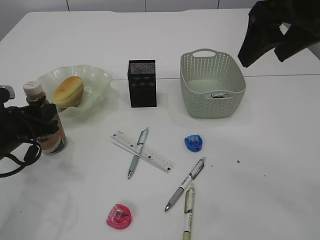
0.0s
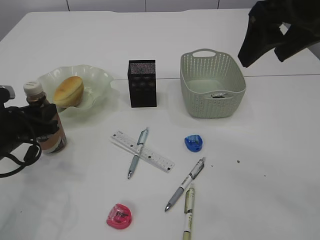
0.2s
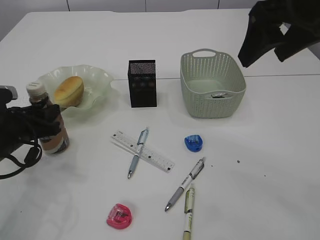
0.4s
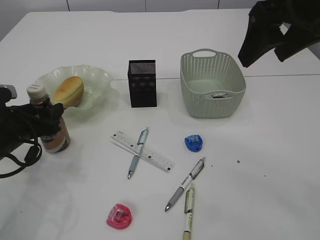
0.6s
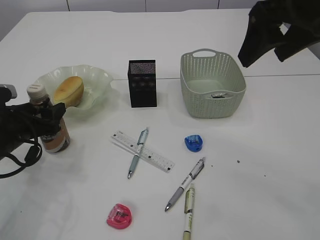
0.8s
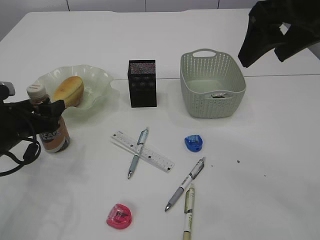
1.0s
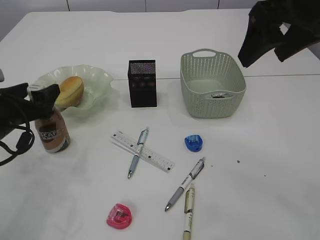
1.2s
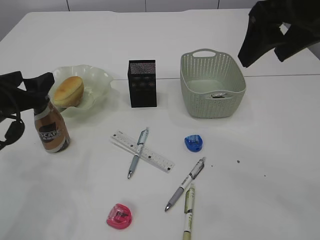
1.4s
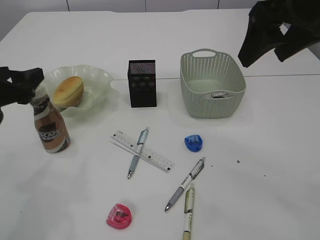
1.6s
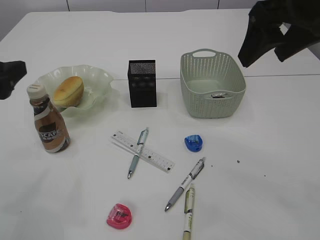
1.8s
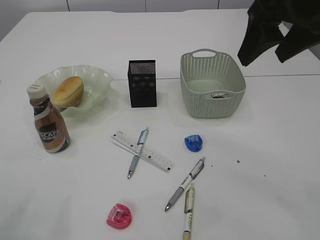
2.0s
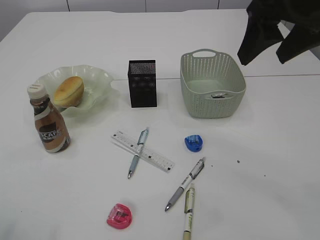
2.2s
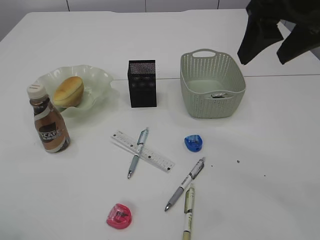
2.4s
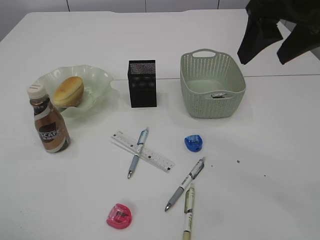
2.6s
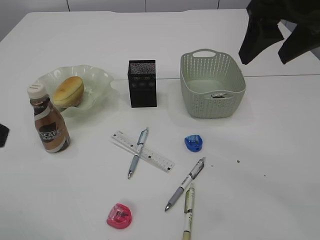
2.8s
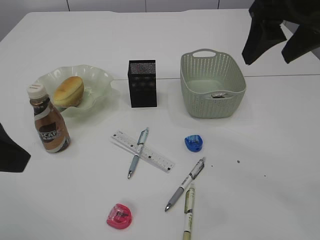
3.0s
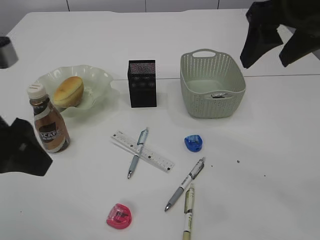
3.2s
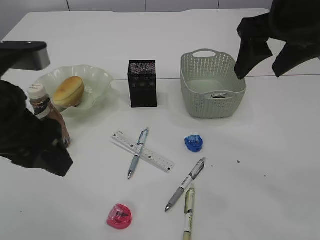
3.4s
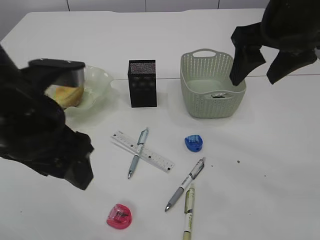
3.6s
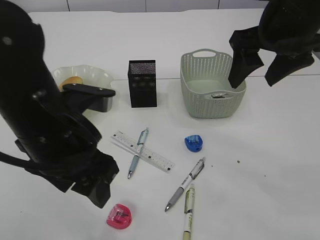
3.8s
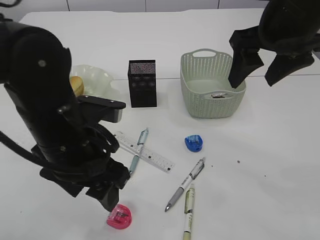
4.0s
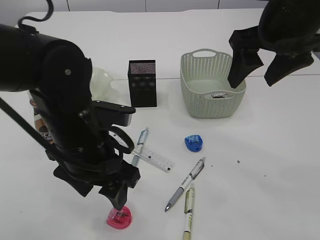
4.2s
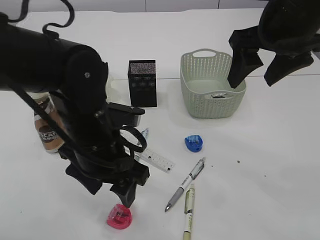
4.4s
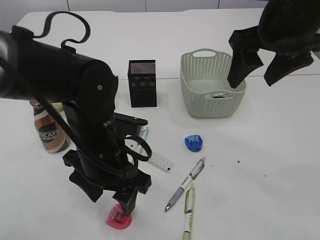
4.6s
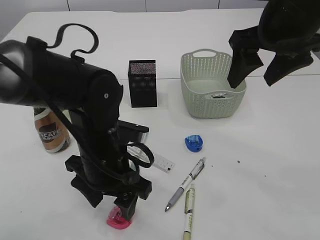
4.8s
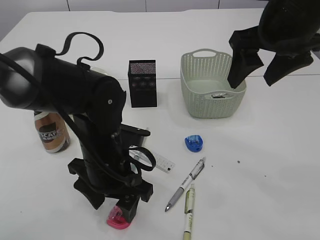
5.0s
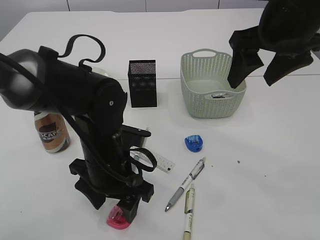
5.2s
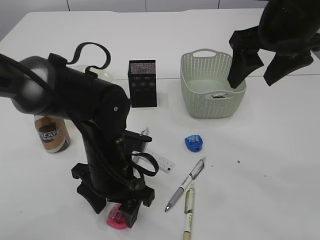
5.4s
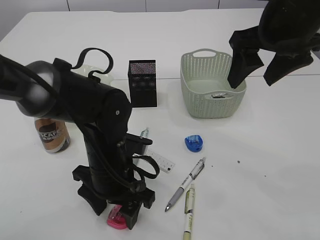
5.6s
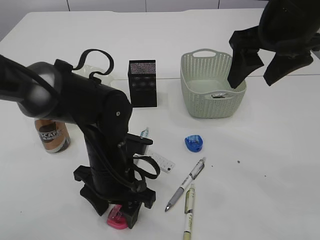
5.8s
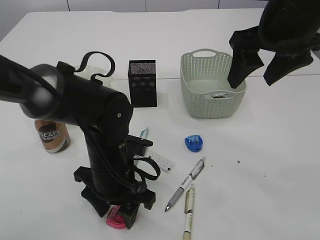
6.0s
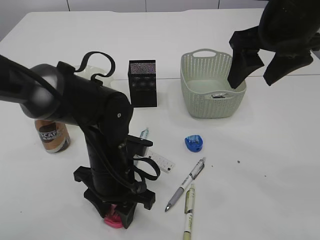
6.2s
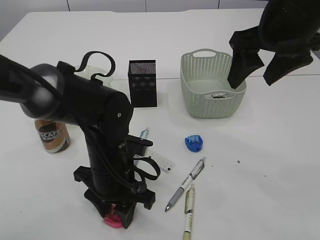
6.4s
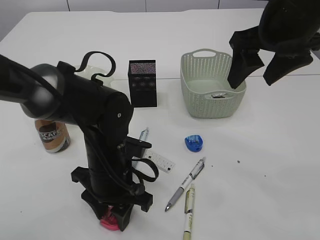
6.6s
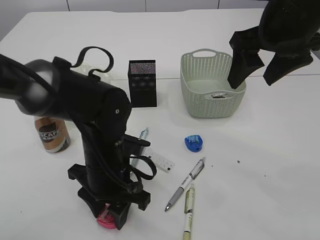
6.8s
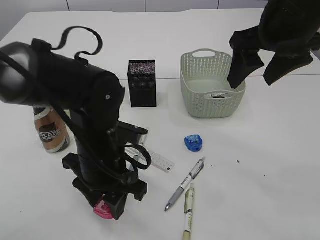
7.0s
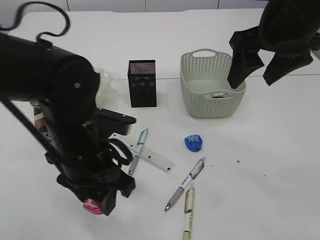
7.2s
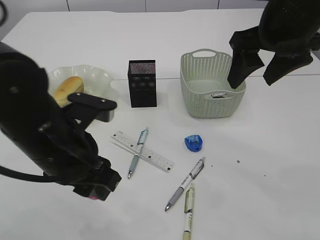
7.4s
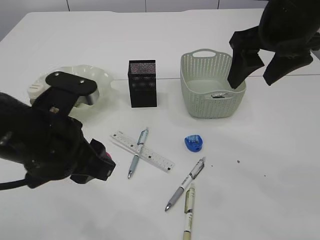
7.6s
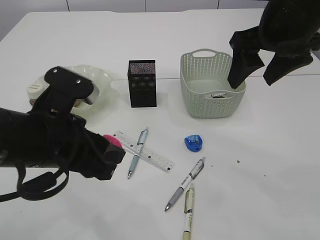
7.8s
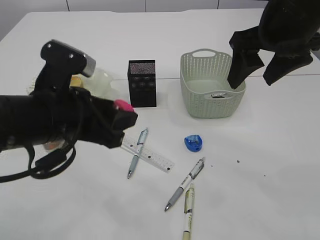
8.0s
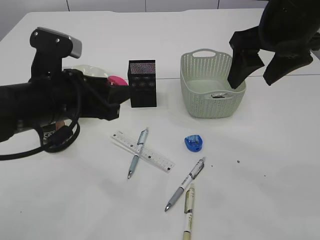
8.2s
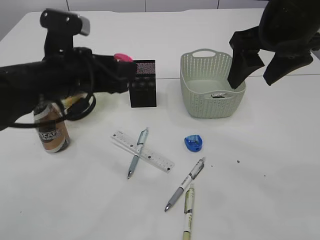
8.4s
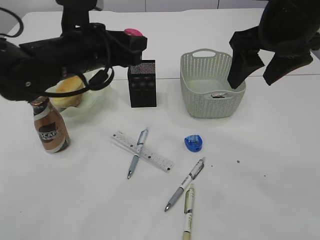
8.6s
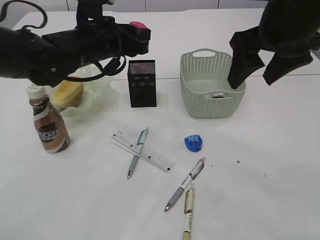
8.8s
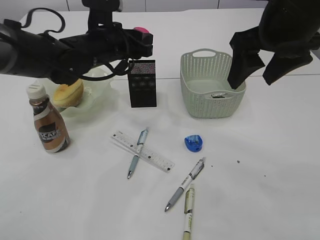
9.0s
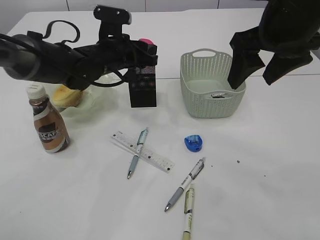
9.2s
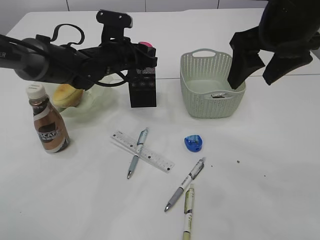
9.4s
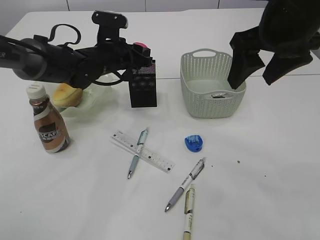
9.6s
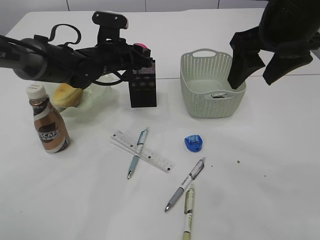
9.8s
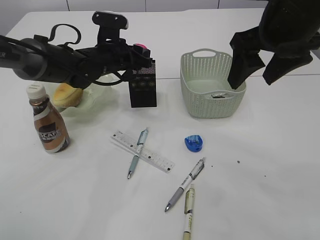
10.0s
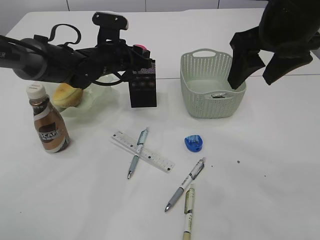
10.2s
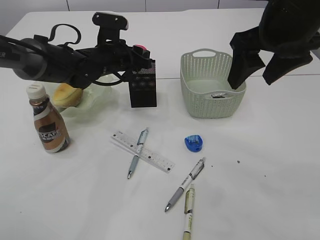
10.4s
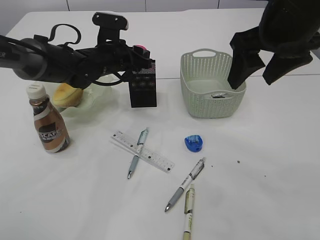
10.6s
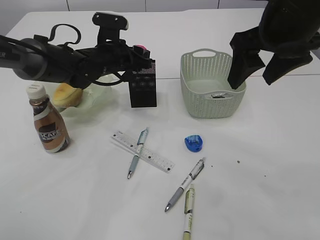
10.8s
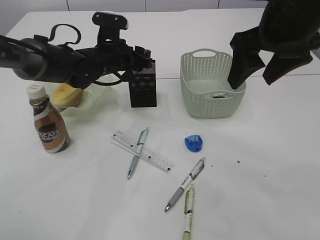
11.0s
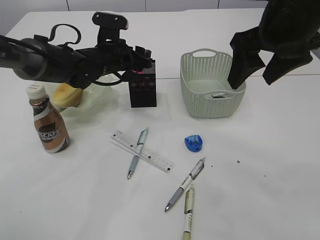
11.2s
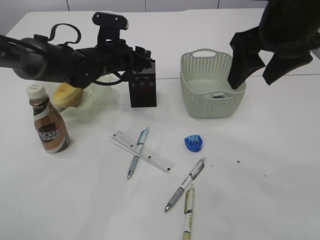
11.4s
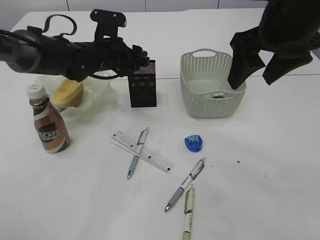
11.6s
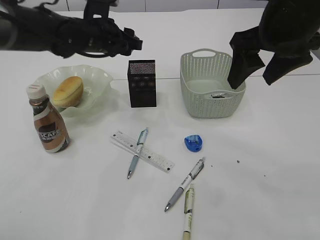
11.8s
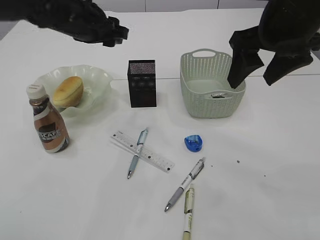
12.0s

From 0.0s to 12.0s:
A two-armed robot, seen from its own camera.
Step, from 1.6s to 7.0s: Pick up the red pencil sharpener.
Step, from 7.2s to 11.8s: Place the red pencil sharpener into the pen holder.
From 0.0s to 1.6s: The left gripper travels upward by approximately 10 cm, and opens its fingers.
From 1.6s to 3.0s: The left gripper heads backward, upward and to the right, covering about 15 cm.
From 3.0s to 4.4s: The left gripper is displaced to the right, downward and forward by about 20 cm. Meanwhile the right gripper changes place by approximately 5 cm.
From 4.4s to 6.0s: The left gripper travels downward by some 5 cm.
From 6.0s to 7.6s: The left gripper goes approximately 15 cm upward, to the left and backward.
From 7.6s to 9.0s: The left gripper shifts some 20 cm forward.
From 9.0s to 10.4s: The left gripper travels downward by about 5 cm.
From 10.4s to 12.0s: The left gripper travels upward by some 10 cm.

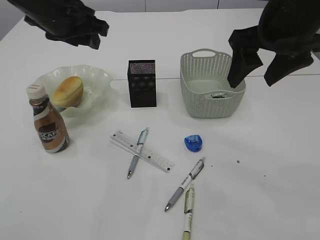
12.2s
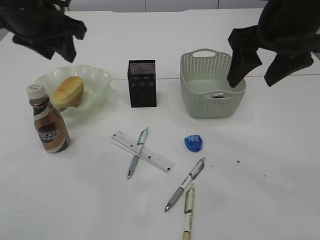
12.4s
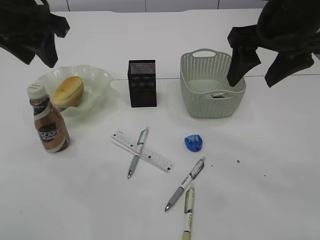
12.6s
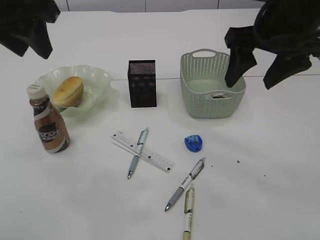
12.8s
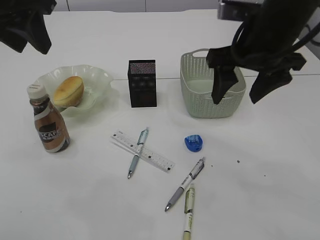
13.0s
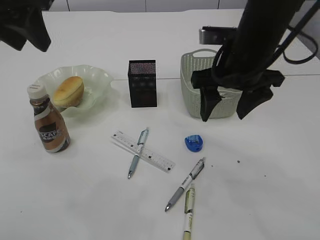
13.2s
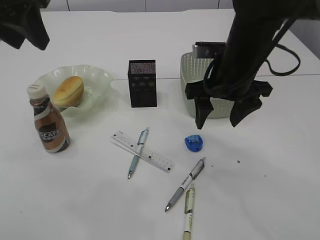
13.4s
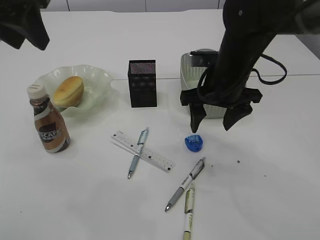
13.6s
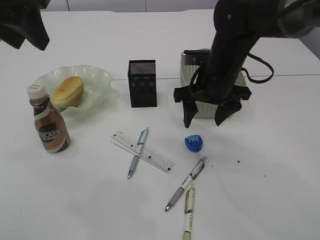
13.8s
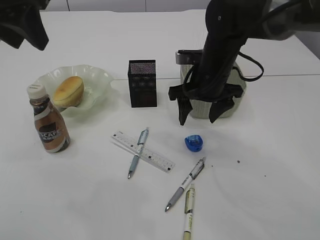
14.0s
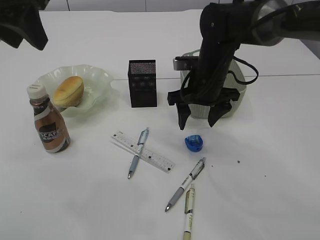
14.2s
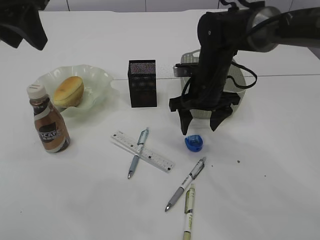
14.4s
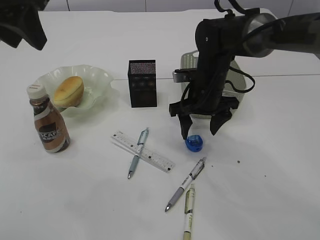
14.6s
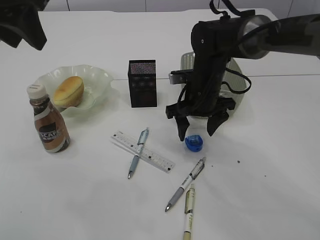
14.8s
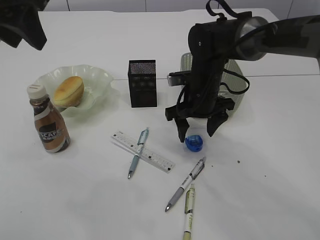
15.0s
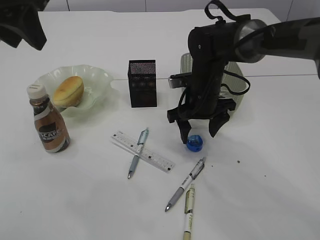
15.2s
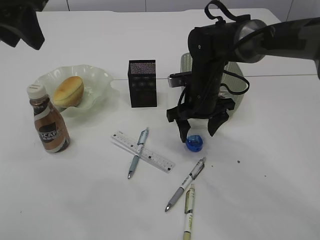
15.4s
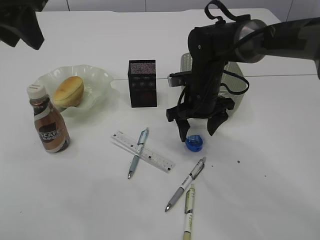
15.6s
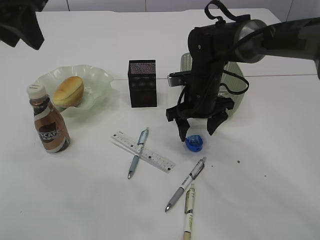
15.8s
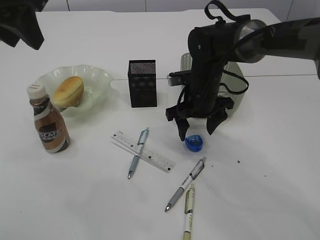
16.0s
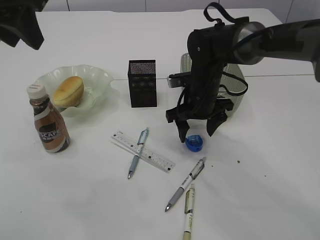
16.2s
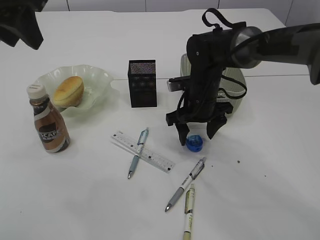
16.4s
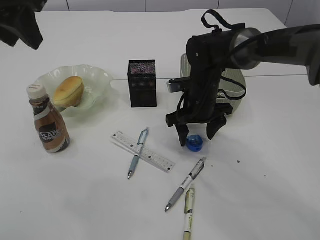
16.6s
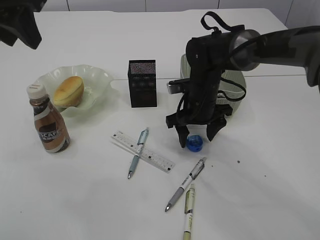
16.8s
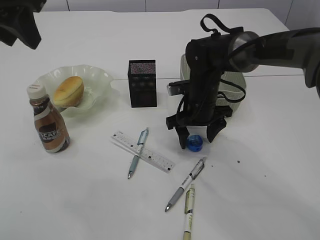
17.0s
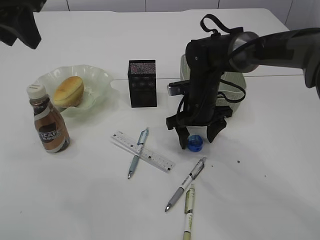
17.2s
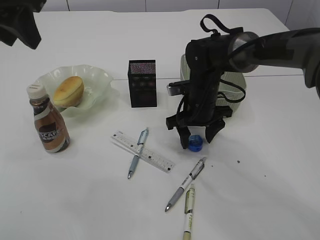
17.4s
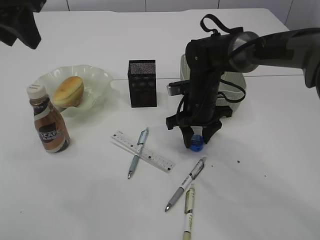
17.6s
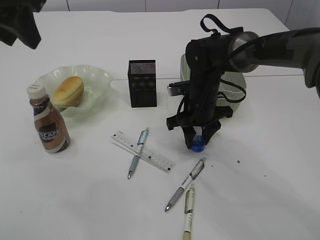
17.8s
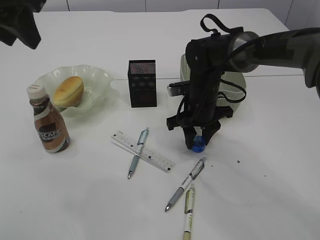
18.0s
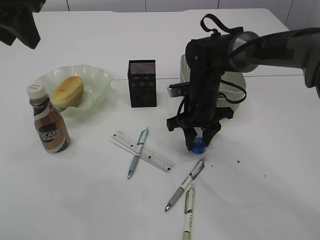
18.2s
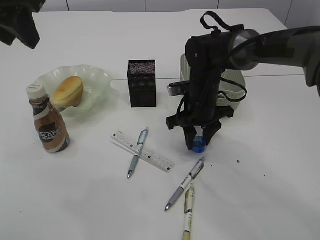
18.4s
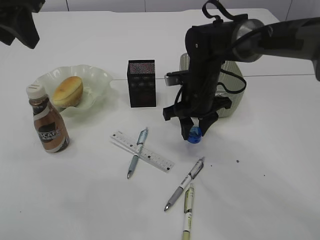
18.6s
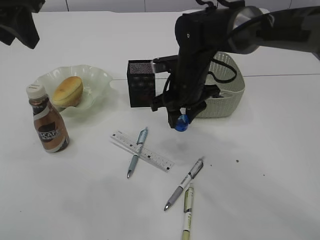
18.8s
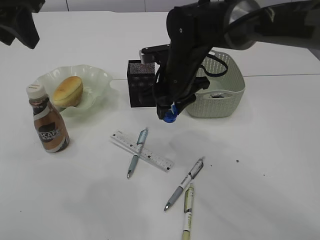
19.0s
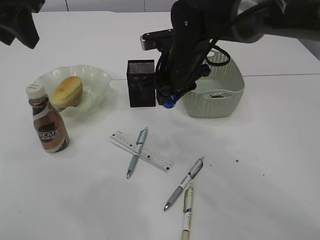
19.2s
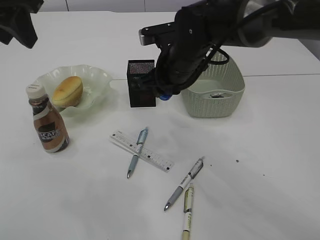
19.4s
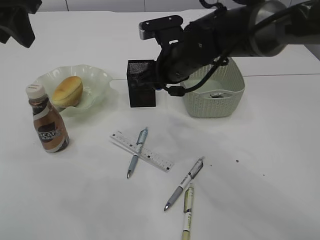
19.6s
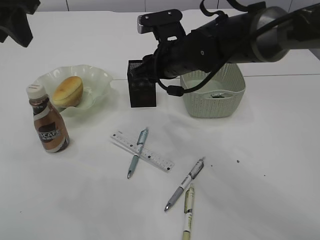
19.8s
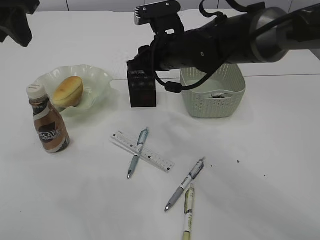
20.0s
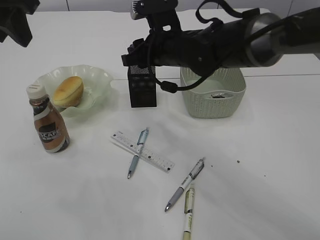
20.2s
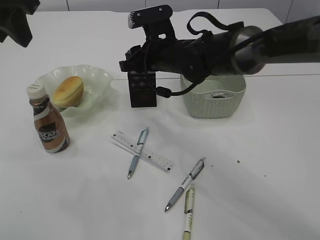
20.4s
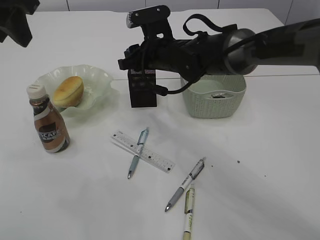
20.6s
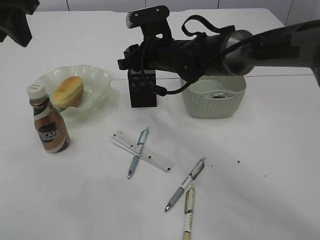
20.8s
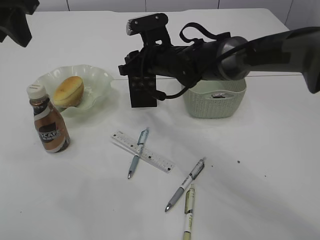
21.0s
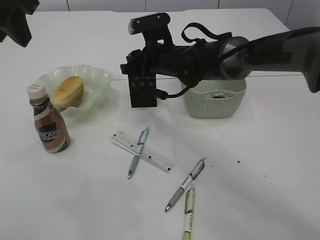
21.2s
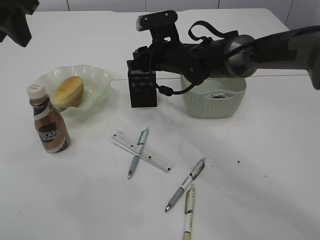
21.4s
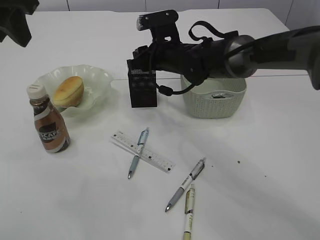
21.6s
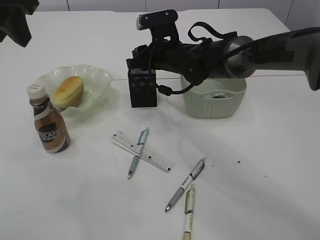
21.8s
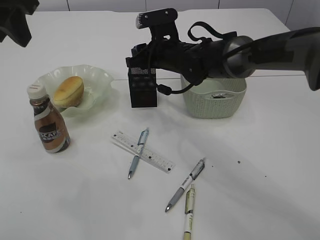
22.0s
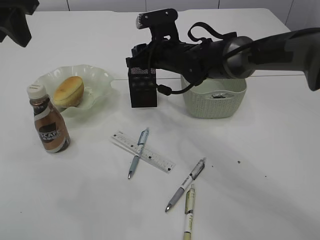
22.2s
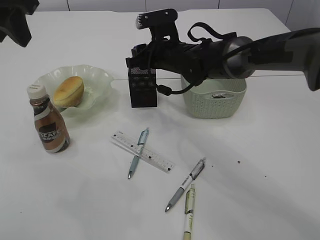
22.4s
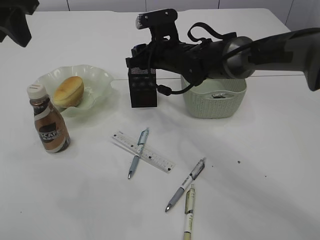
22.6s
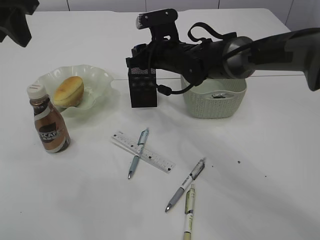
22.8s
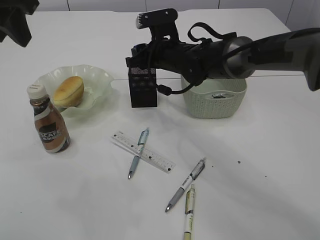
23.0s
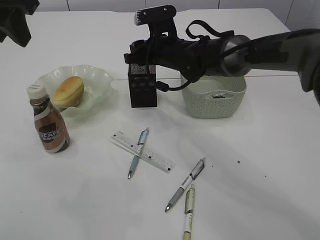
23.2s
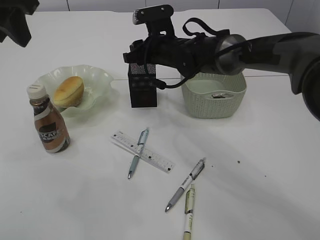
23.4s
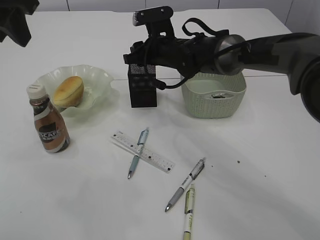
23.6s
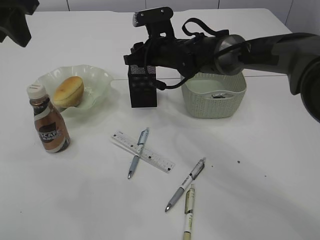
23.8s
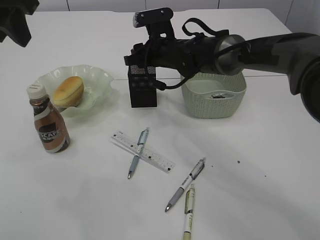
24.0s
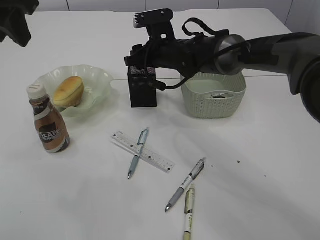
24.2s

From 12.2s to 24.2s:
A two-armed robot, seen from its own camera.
Step, from 12.2s to 18.8s: Pick up the blue pencil sharpener.
From 12.2s to 13.8s: The right gripper moves downward, forward and to the left, approximately 15 cm. Meanwhile the left gripper goes approximately 15 cm backward and upward.
From 13.8s to 15.2s: The right gripper moves downward, some 5 cm.
From 15.2s to 16.6s: The grippers make only small movements.
From 16.6s to 18.2s: The right gripper closes.
From 18.2s to 19.8s: The right gripper heads upward, covering about 10 cm.
From 19.8s to 21.2s: The right gripper moves forward, about 5 cm.
From 21.2s to 24.2s: There are only small adjustments of the grippers.
